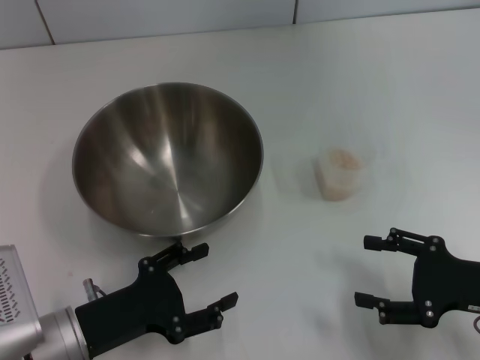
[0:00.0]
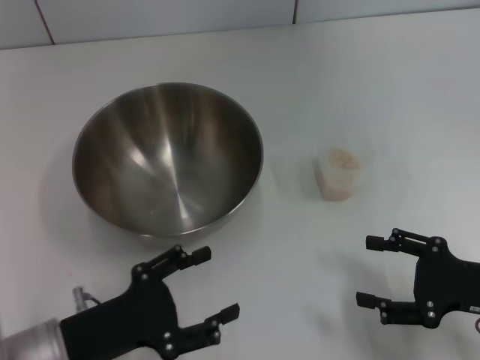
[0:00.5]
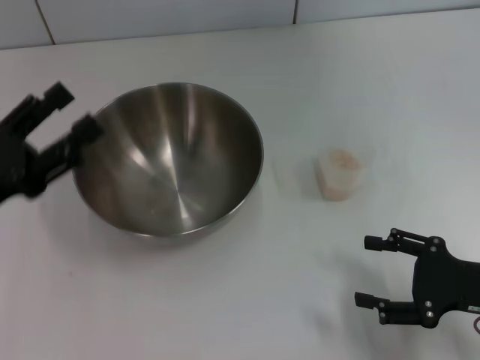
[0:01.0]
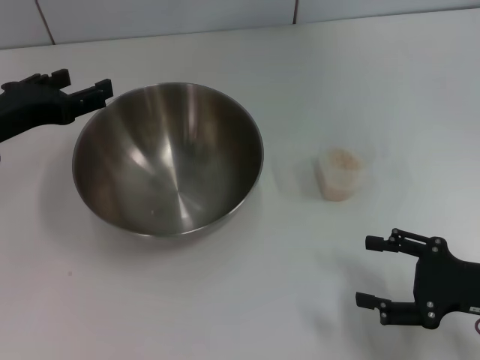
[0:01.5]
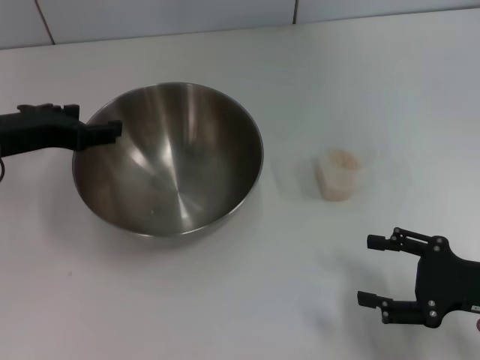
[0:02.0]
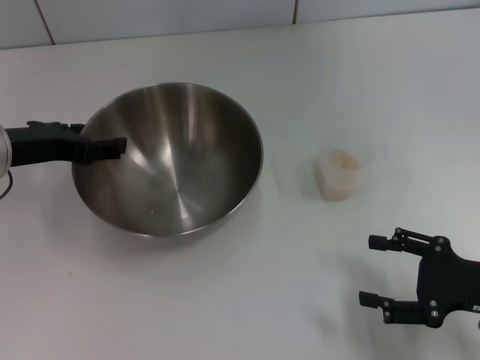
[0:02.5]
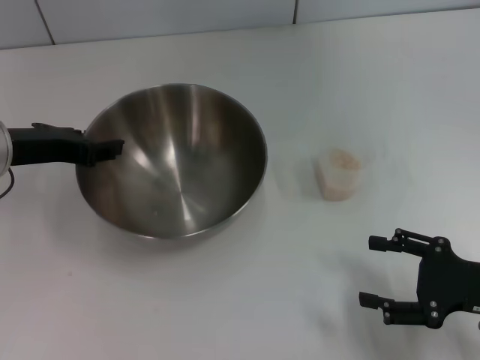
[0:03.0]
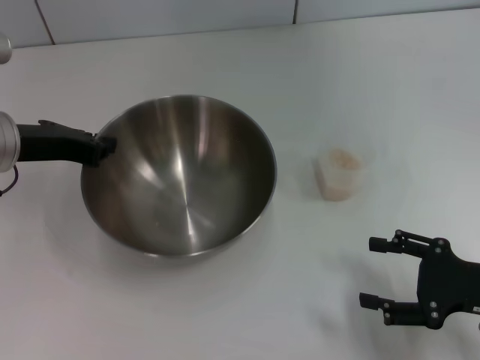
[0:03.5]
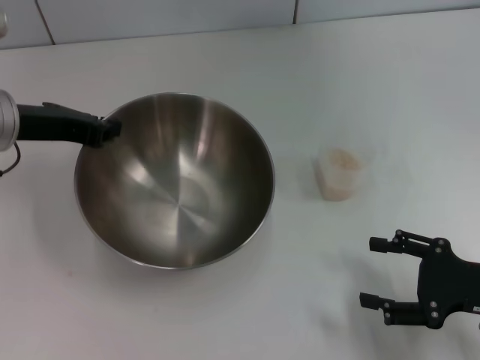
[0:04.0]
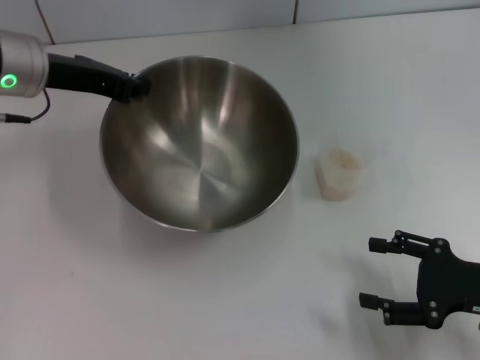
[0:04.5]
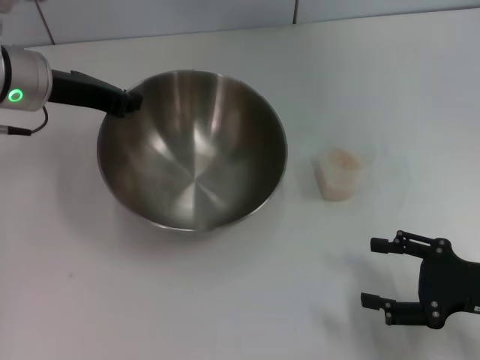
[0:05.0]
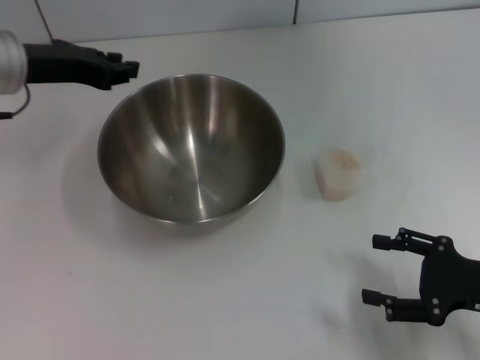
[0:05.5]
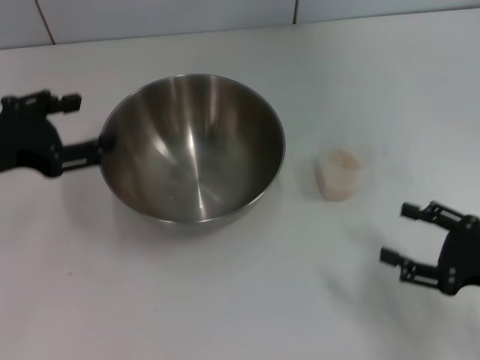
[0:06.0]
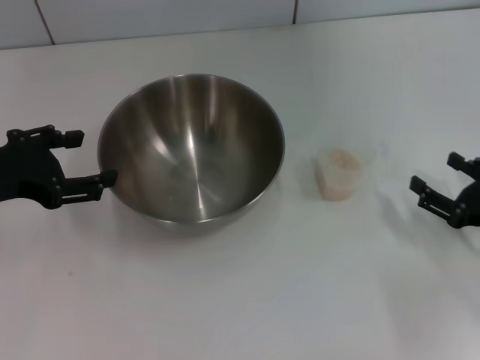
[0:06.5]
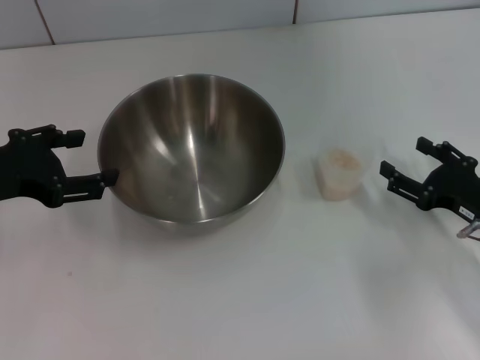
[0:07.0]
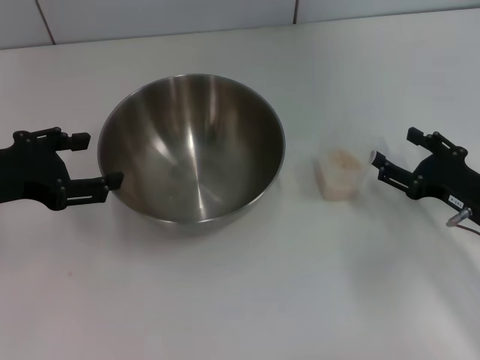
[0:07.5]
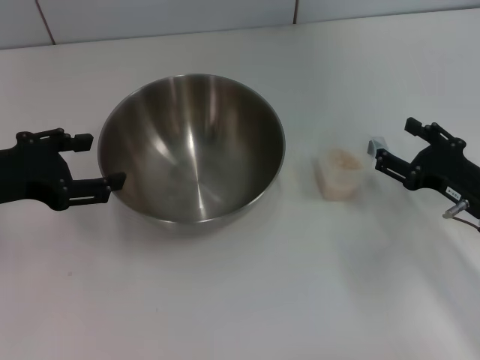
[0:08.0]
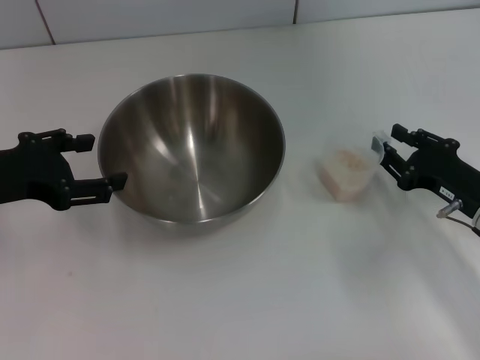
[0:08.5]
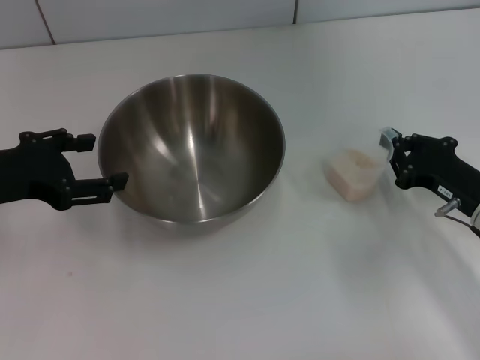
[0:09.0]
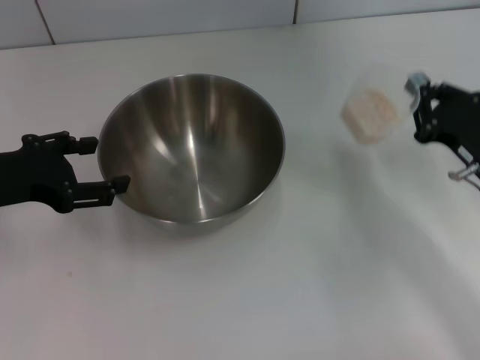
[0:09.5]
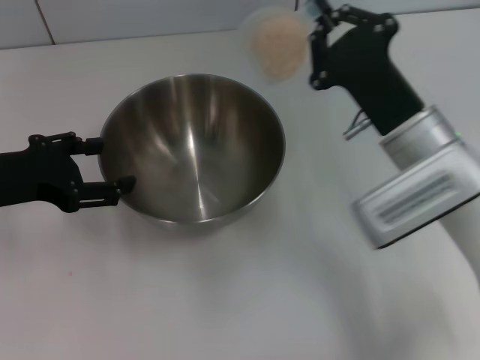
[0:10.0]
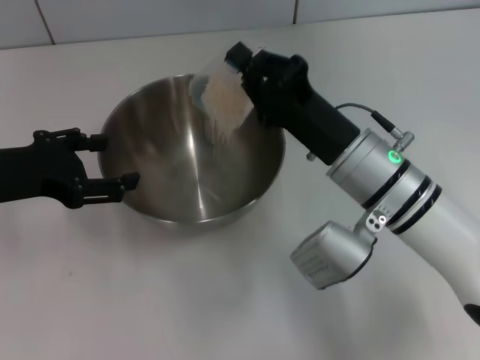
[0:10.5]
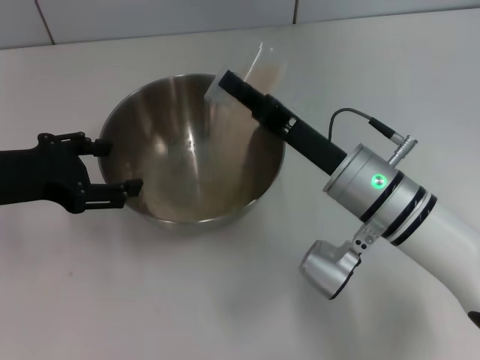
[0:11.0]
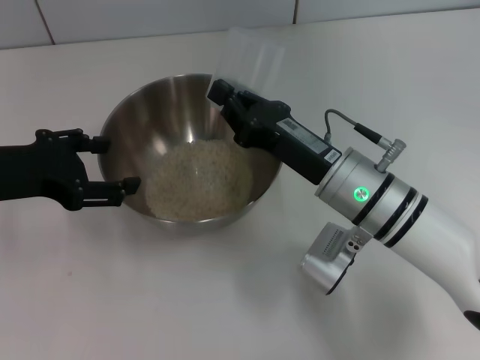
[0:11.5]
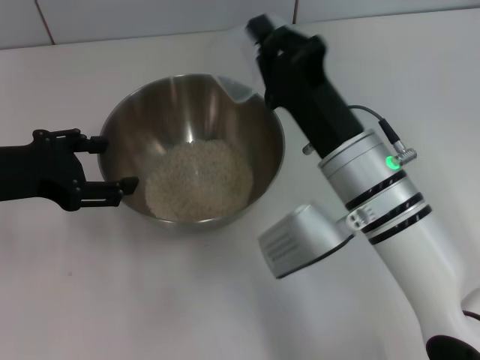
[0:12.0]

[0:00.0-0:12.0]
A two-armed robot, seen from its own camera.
Task of the whole recording: Place the bowl in the middle of the table with one hand and pour the rice from the grain cup into it with the other hand.
Step, 0:00.0 to 0:04.0: Pick up the bowl with the left gripper.
Step, 0:04.5 to 0:05.5: Place the bowl in the center of view with the left gripper.
Step, 0:06.0 to 0:09.5: Pick up the cup with rice in it with the right gripper.
Step, 0:10.0 to 0:12.0: Pour the rice from the cup into the bowl with the right gripper.
0:00.0 to 0:02.0: The left gripper is displaced upward and forward by about 20 cm.
0:02.0 to 0:04.0: The left gripper closes its fingers.
0:04.0 to 0:06.0: The left gripper goes about 5 cm backward, and opens up.
0:06.0 to 0:08.0: The right gripper goes roughly 10 cm forward.
0:08.0 to 0:10.0: The right gripper travels to the left and upward by some 15 cm, and closes up.
0:10.0 to 0:12.0: The right gripper shifts approximately 5 cm to the left.

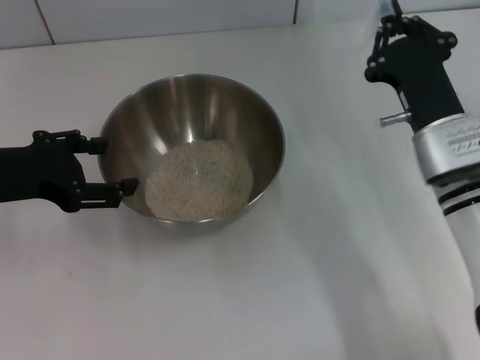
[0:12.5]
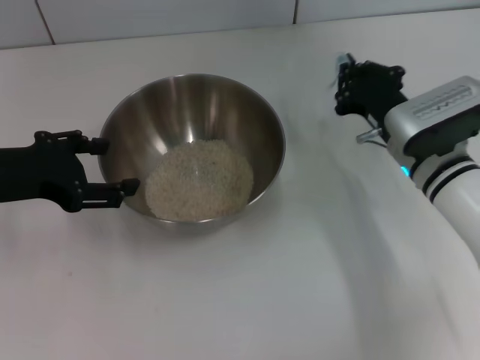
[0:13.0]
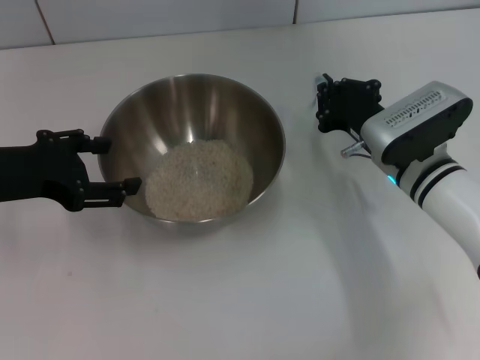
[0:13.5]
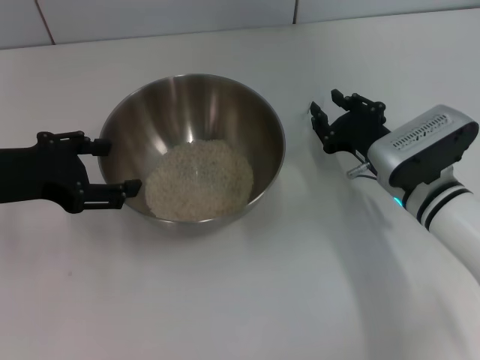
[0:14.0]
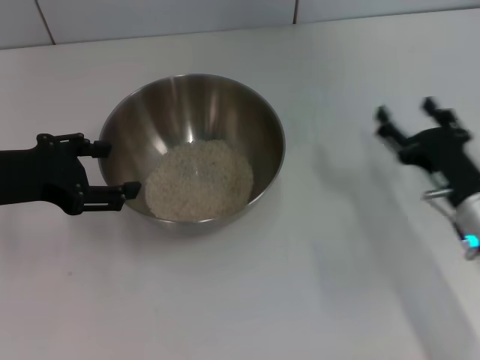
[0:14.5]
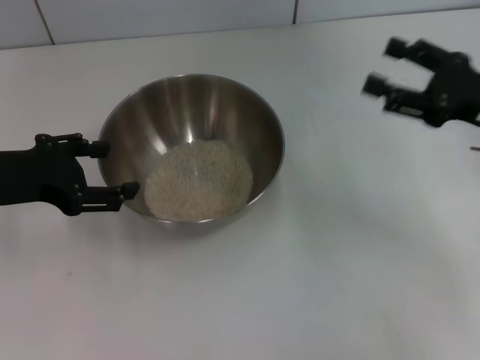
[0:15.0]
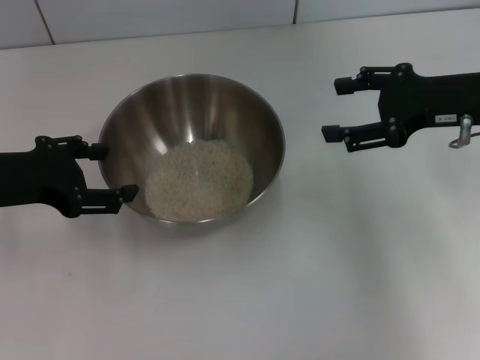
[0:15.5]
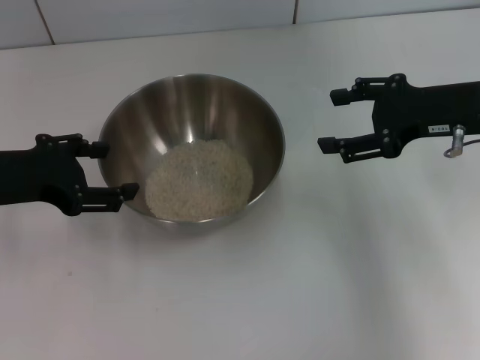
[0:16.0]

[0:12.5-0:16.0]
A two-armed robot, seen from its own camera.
Task of the whole recording: Place the bowl in the middle of the table with one hand and pour the rice from the grain cup into it with the other hand.
Step, 0:12.5 to 0:14.0: Place the cup on the table with the right gripper.
0:12.5 to 0:14.5: The right gripper moves to the right, downward and backward, some 10 cm, and opens up.
0:14.5 to 0:16.0: The right gripper travels upward and forward by some 15 cm.

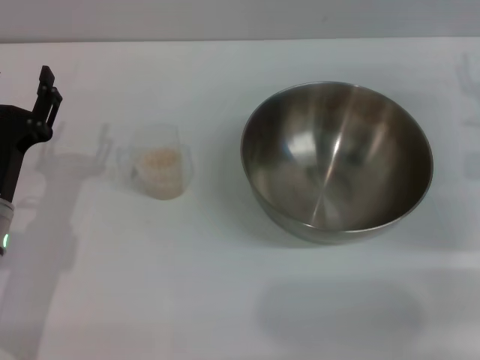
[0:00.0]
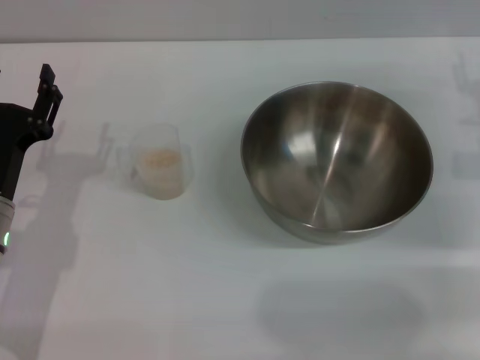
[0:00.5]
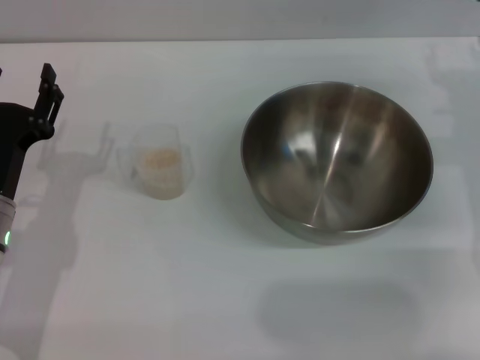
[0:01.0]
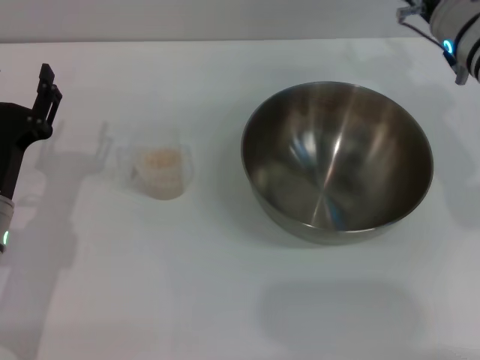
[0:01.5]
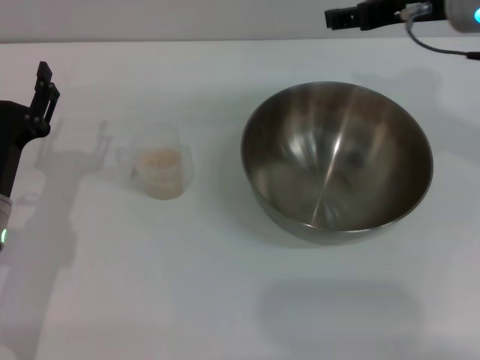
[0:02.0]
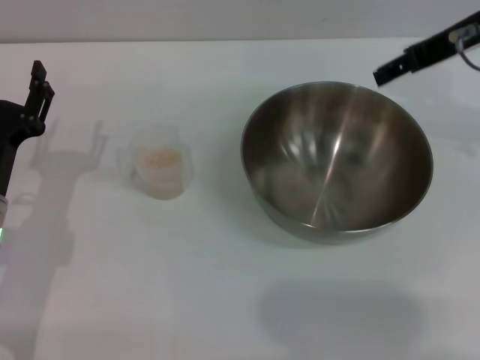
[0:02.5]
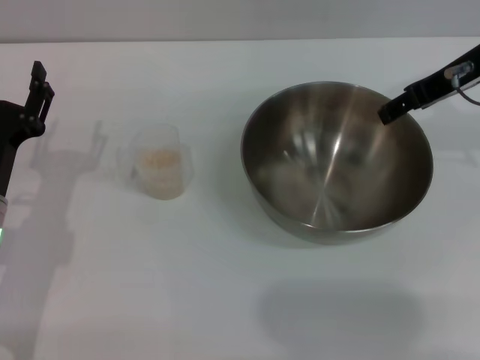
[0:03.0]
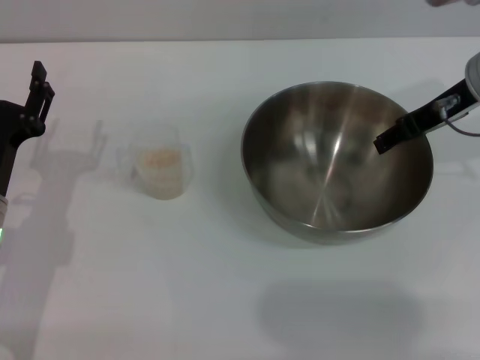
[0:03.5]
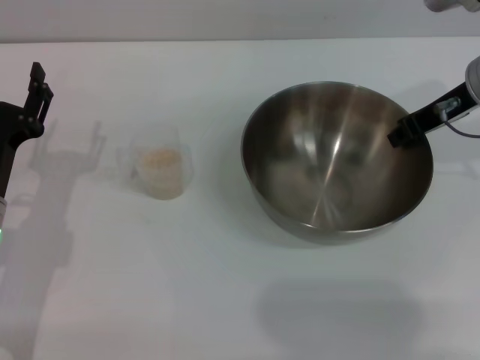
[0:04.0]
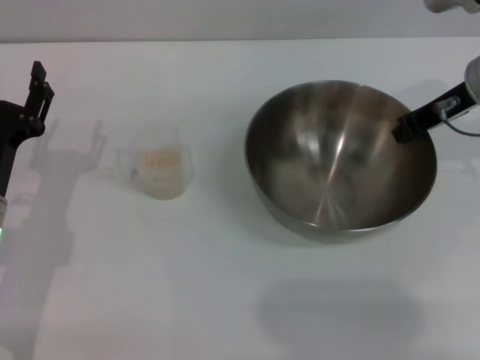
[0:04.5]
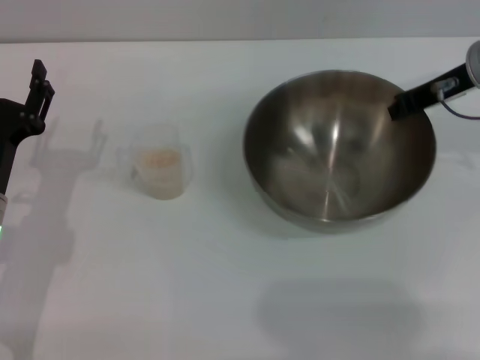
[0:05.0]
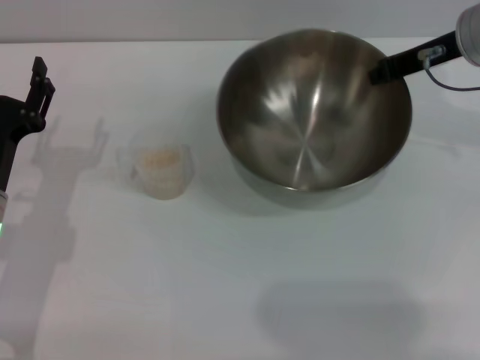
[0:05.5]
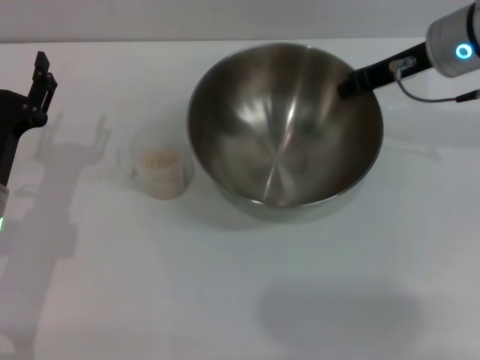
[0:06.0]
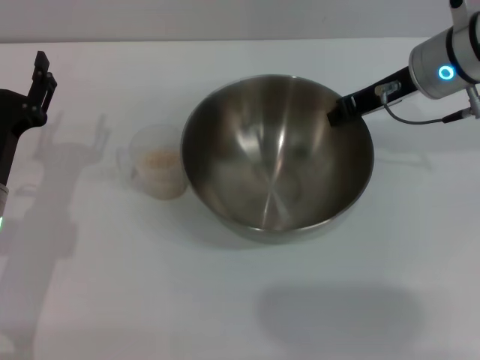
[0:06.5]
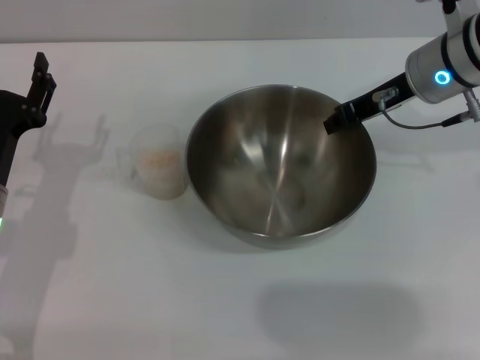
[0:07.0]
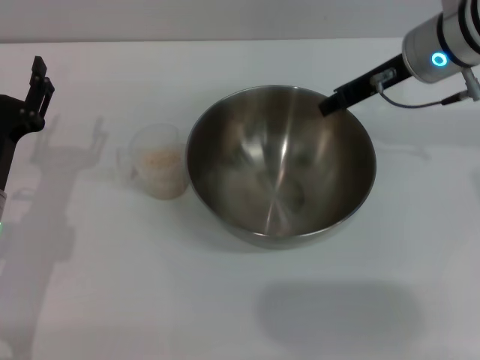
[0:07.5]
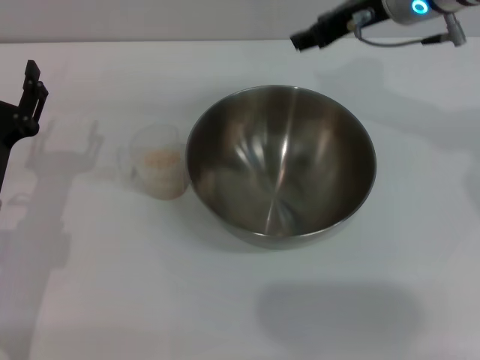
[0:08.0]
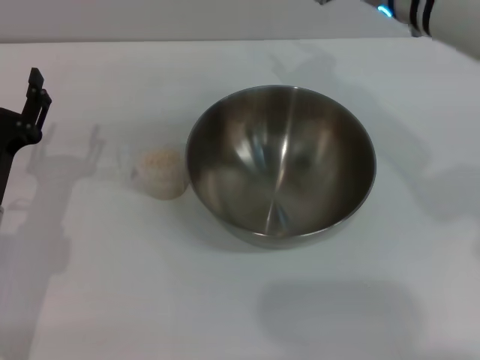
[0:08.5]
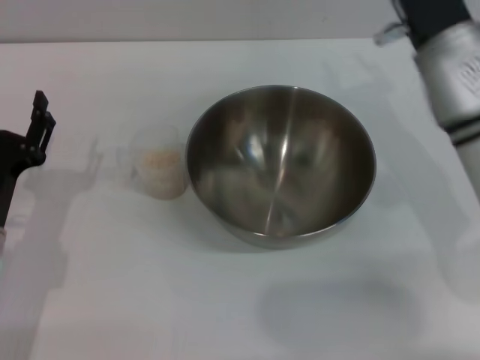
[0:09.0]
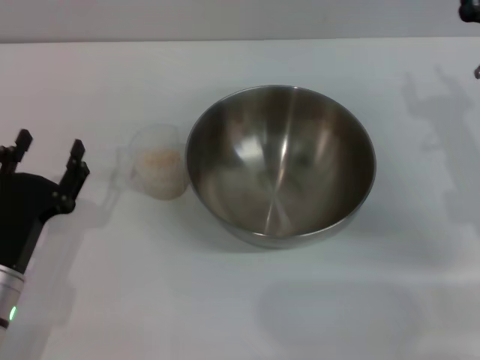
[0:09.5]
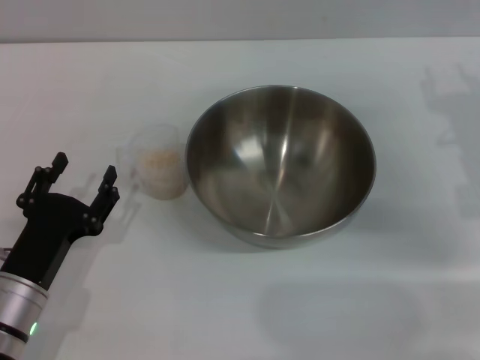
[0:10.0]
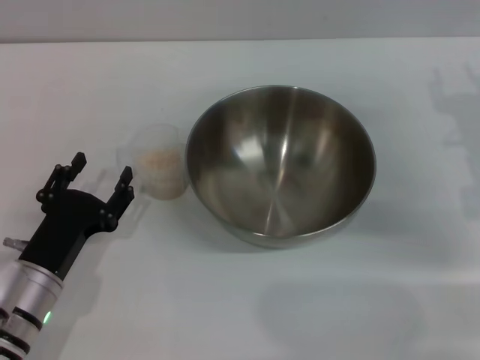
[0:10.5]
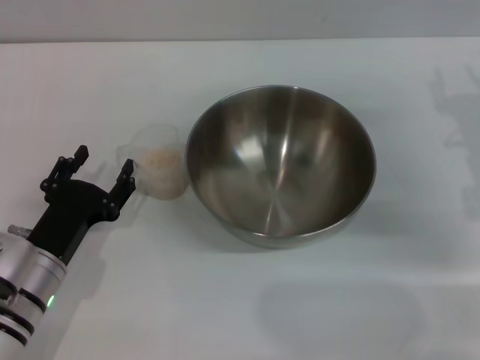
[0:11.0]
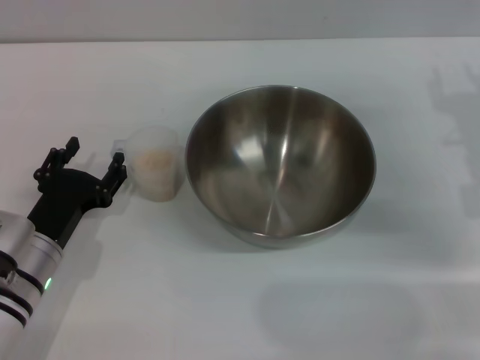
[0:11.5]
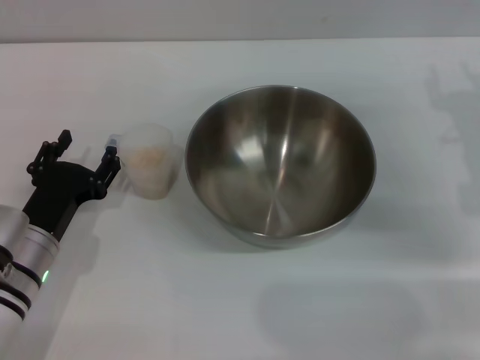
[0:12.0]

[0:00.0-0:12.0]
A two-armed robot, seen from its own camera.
Task of the whole recording: Place the bowl in the middle of the table with one hand and pour the rice from the grain cup into it with the other hand.
Step, 0:00.0 to 0:05.0: Pick up the bowl with the right gripper.
Step, 0:05.5 to 0:07.5: Place the bowl in the center of view with the right gripper.
0:00.0 to 0:02.0: The right gripper goes approximately 15 cm upward and to the left.
0:02.0 to 0:04.0: The right gripper is displaced downward by approximately 5 cm.
0:04.0 to 0:06.0: The right gripper closes up.
0:06.0 to 0:08.0: The right gripper shifts approximately 5 cm to the left, and opens its fingers.
0:08.0 to 0:10.0: The left gripper travels backward by approximately 5 cm. The right gripper shifts roughly 20 cm downward, to the right and backward.
0:10.0 to 0:12.0: The left gripper travels forward by some 5 cm.
